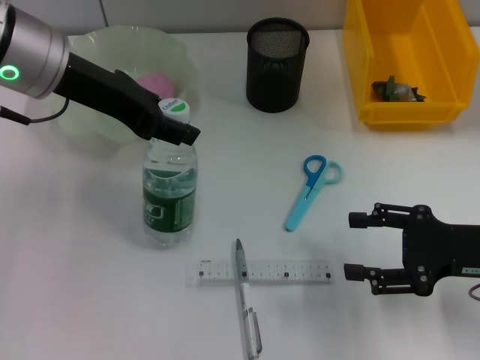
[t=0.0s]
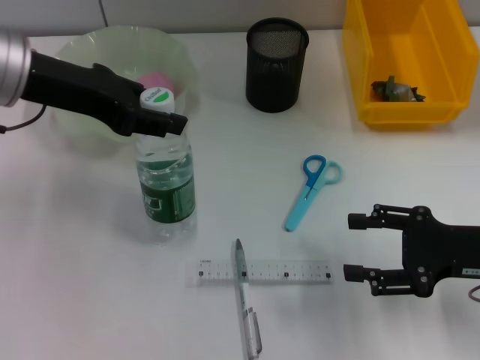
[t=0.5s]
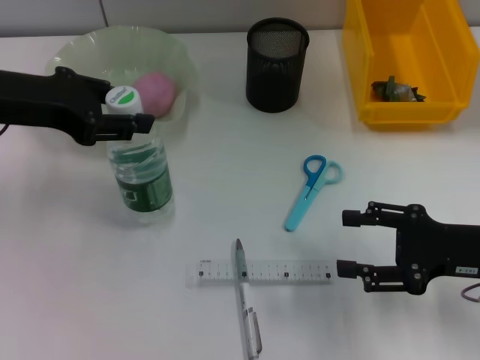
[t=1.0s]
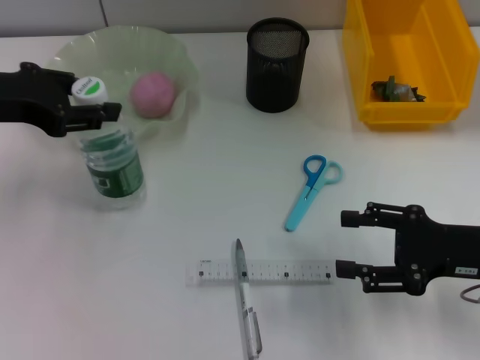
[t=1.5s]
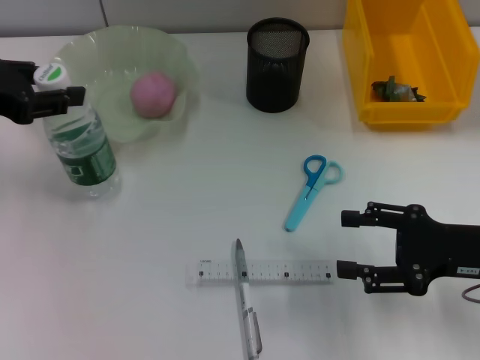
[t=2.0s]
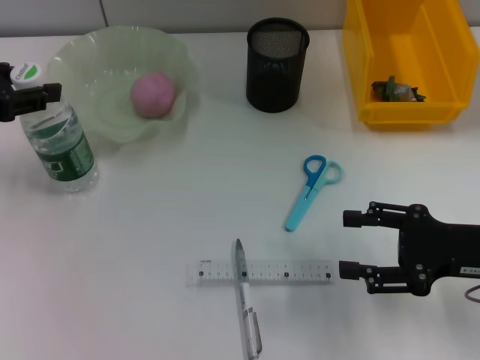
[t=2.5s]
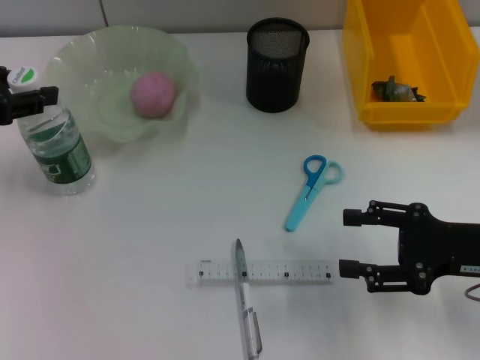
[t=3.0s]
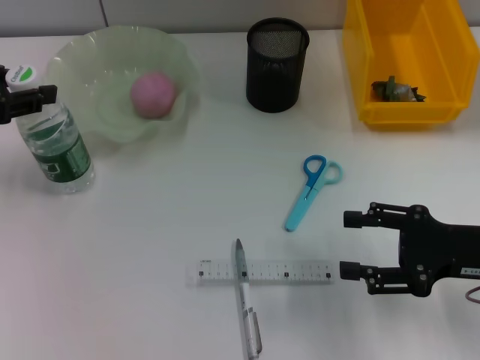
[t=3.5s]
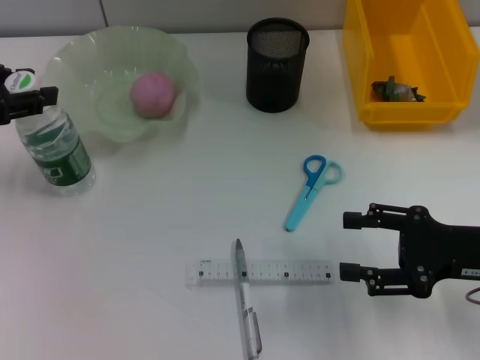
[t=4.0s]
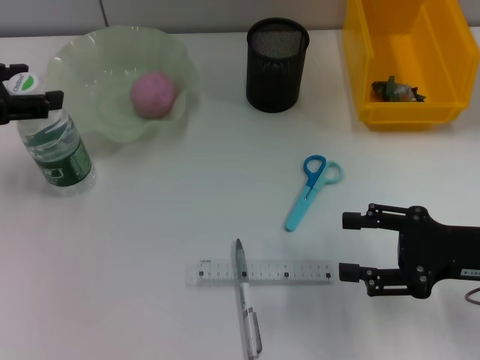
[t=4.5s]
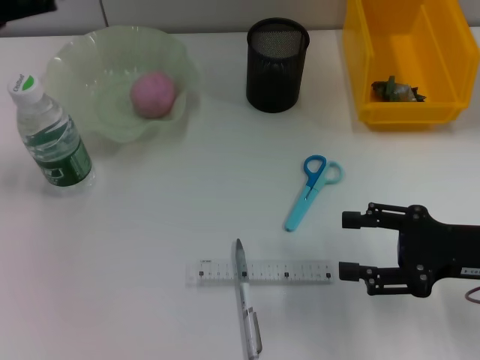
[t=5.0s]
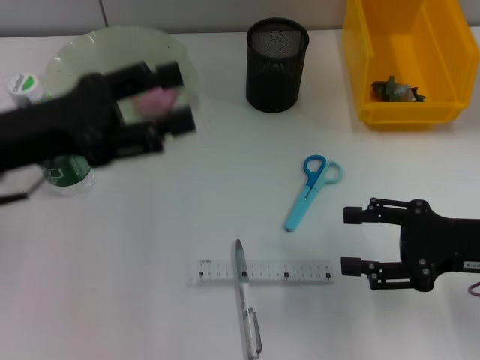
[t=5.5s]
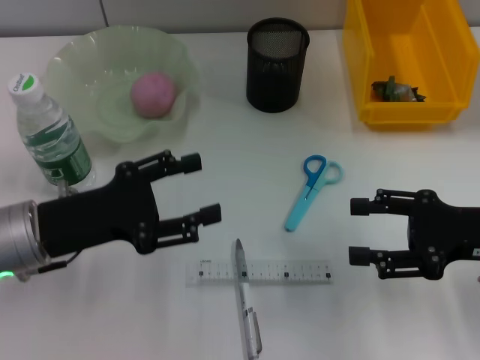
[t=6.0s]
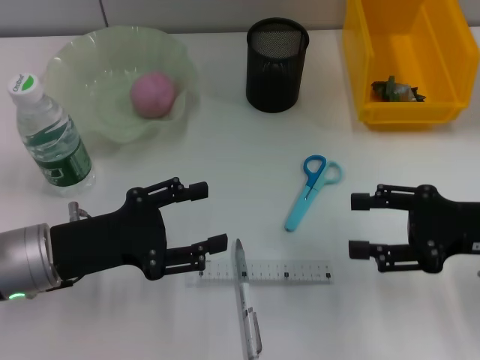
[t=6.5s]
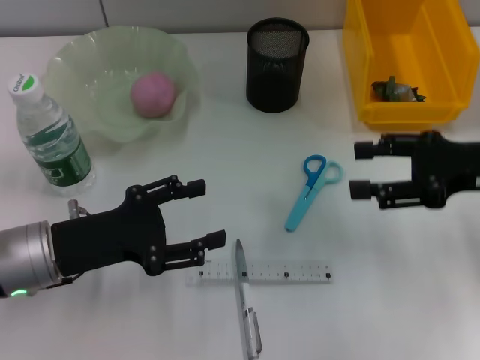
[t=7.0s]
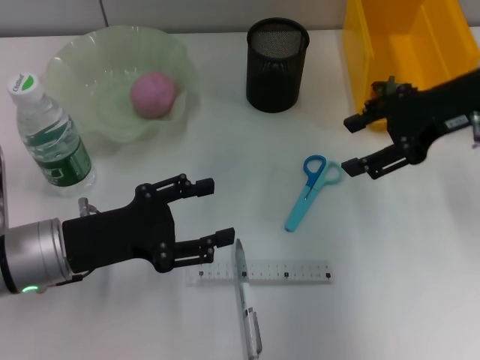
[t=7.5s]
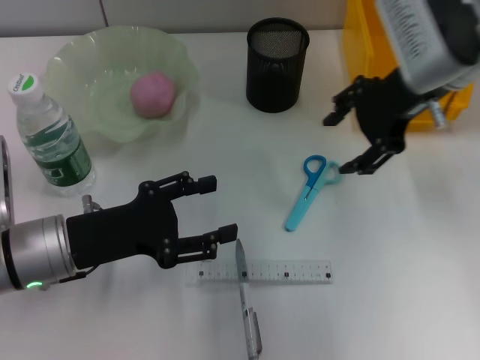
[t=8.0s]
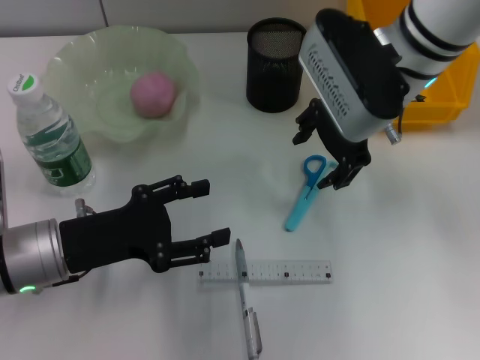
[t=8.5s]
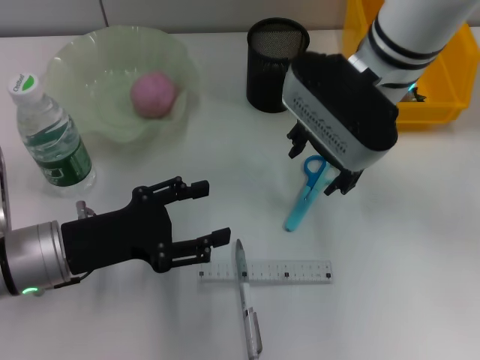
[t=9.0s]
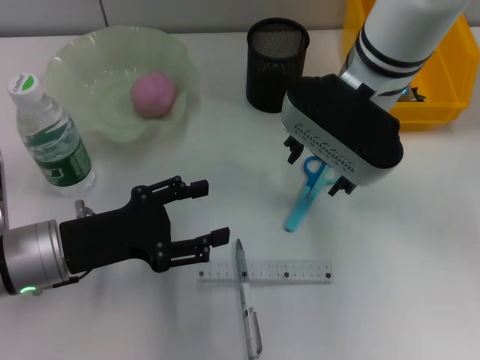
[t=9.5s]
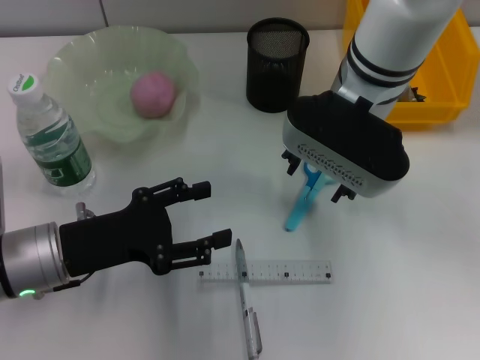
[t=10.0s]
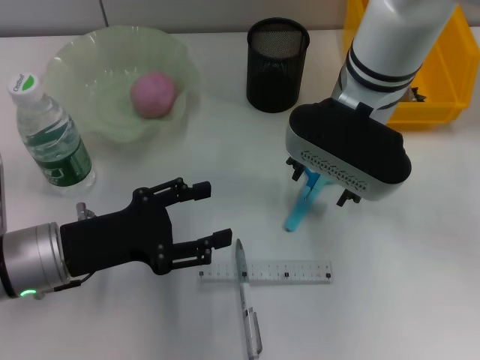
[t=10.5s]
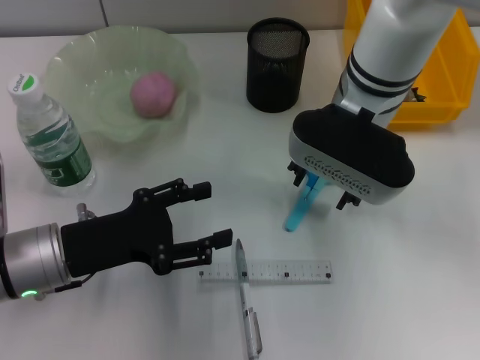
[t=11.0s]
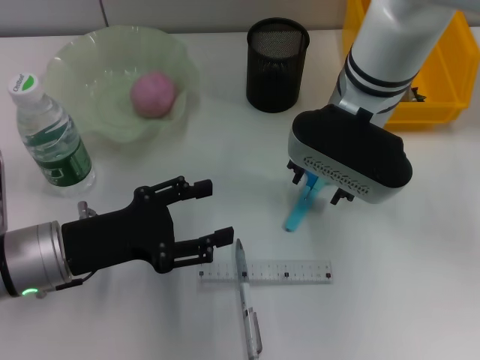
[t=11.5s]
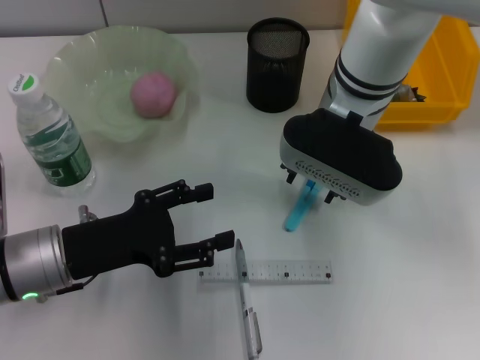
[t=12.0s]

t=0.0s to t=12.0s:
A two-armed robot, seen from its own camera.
Step, t=0.0s to t=4.0s: Place the water bottle on the table with the left hand.
t=0.0s to t=2.0s: The left gripper goes approximately 10 cm to the left.
t=2.0s to t=4.0s: The grippers move only a little.
t=4.0s to t=6.0s: The left gripper moves downward, to the right and backward, approximately 15 cm, and opens up.
t=6.0s to t=8.0s: The right gripper heads forward, upward and to the left, covering roughly 20 cm.
t=8.0s to t=10.0s: The right gripper is displaced to the left by approximately 10 cm.
t=10.0s to t=12.0s: The grippers stay close to where they were, moving slightly.

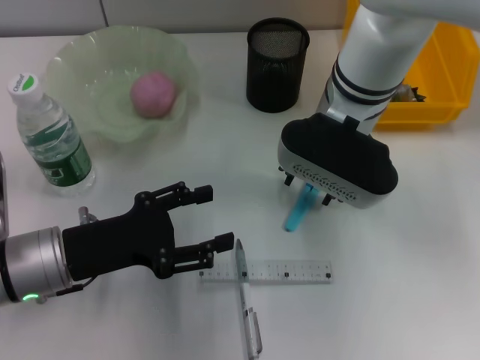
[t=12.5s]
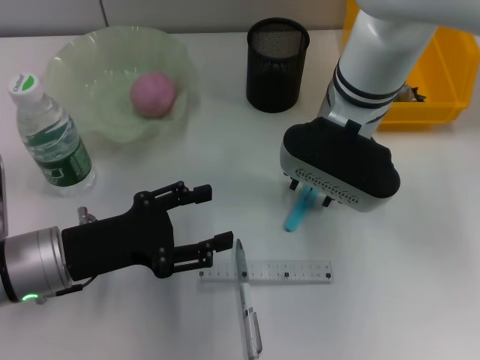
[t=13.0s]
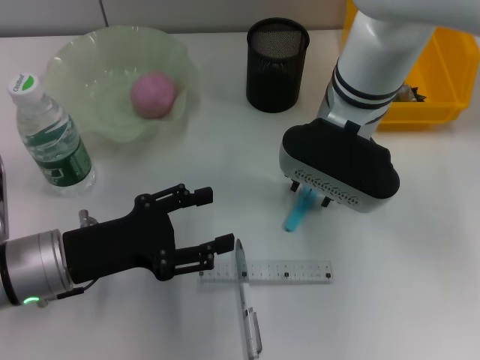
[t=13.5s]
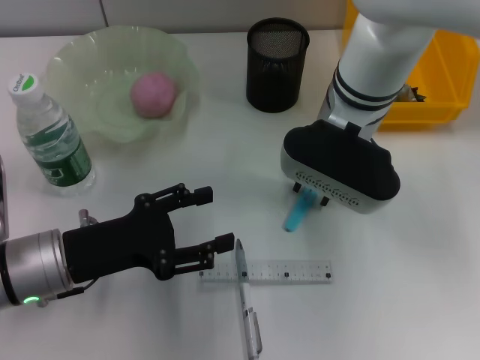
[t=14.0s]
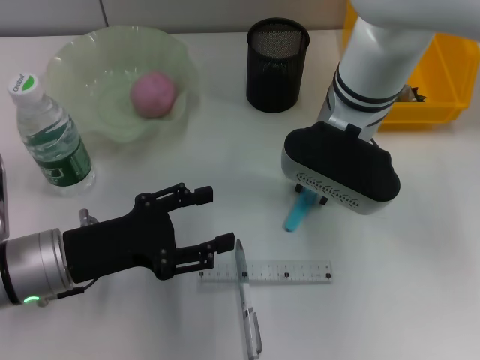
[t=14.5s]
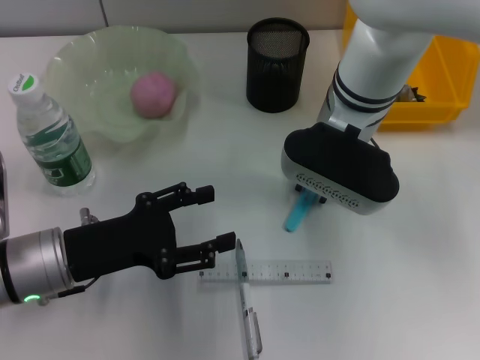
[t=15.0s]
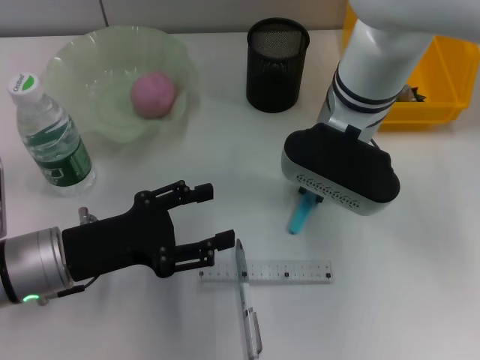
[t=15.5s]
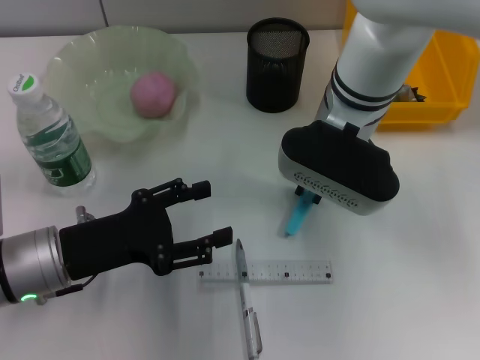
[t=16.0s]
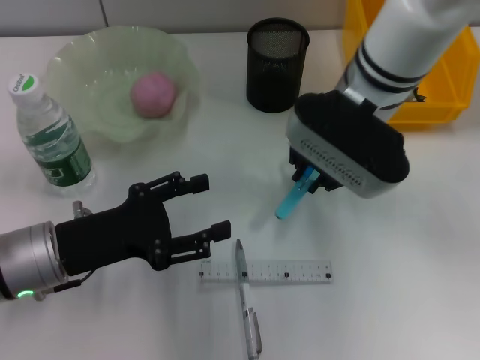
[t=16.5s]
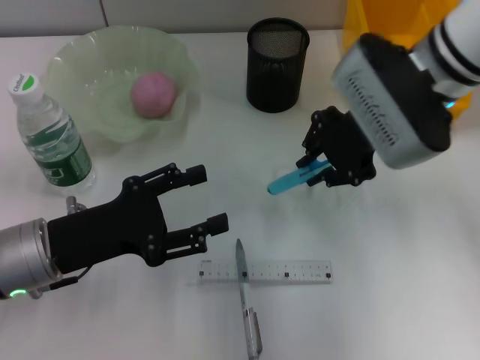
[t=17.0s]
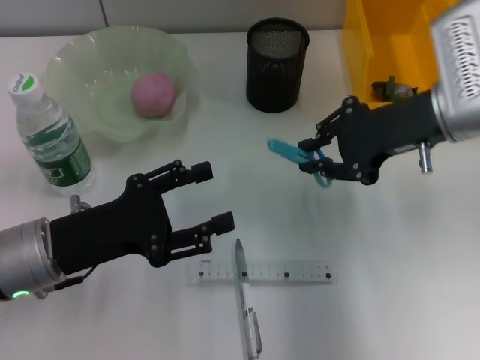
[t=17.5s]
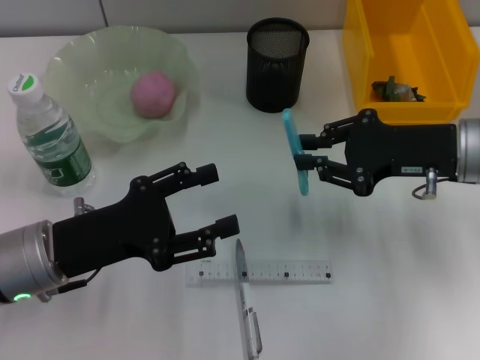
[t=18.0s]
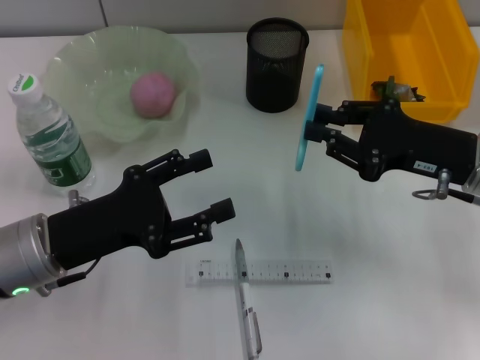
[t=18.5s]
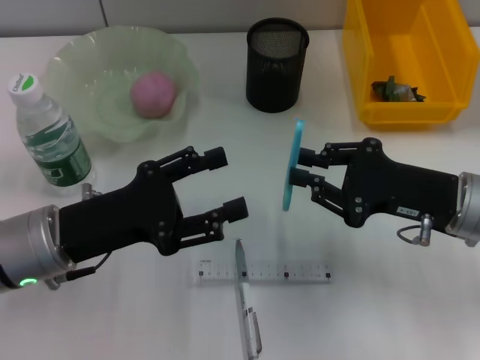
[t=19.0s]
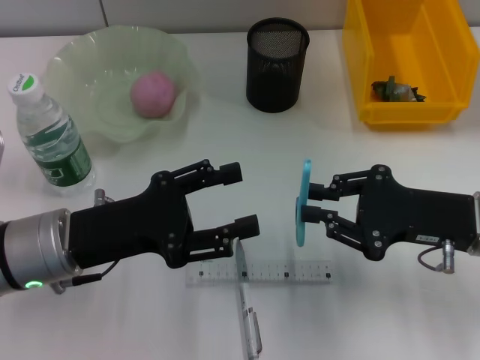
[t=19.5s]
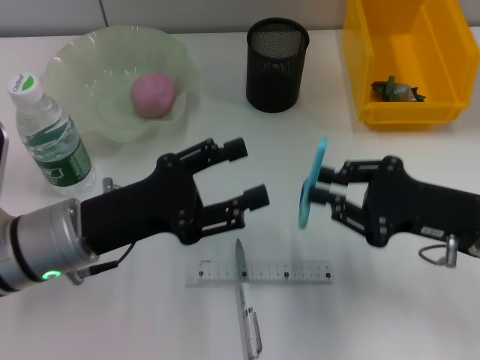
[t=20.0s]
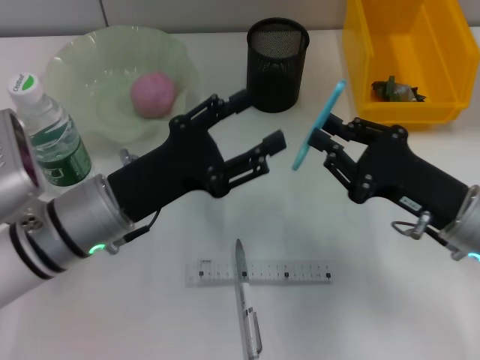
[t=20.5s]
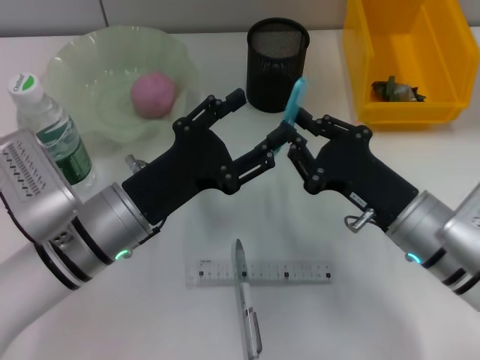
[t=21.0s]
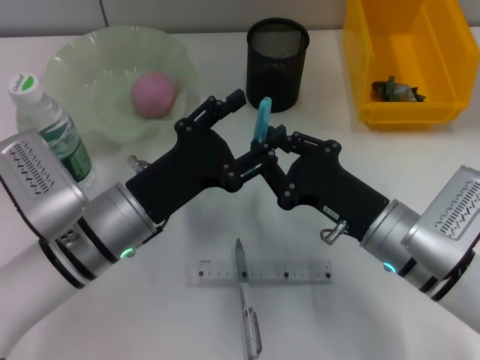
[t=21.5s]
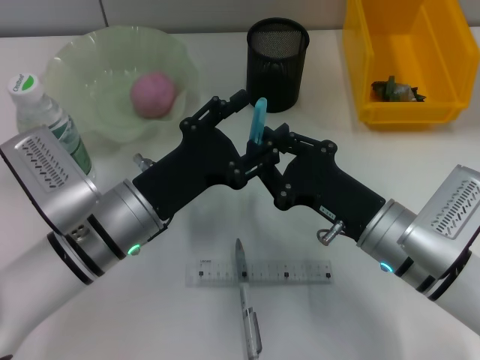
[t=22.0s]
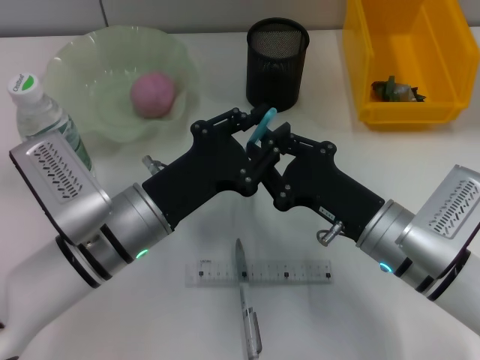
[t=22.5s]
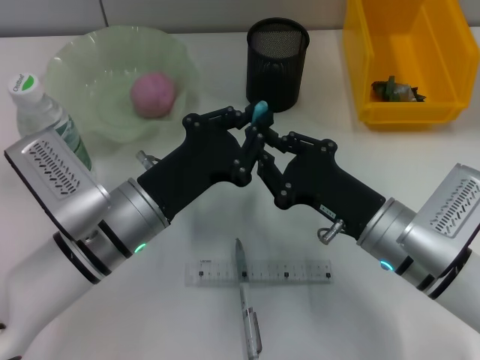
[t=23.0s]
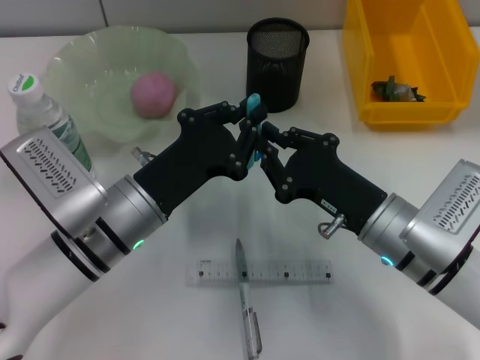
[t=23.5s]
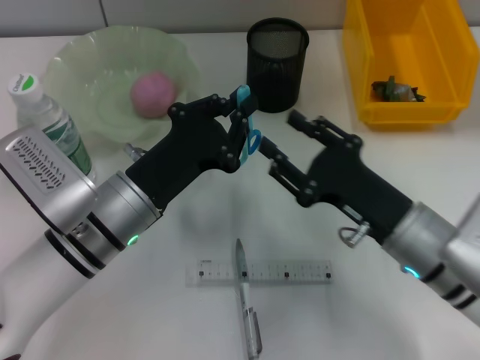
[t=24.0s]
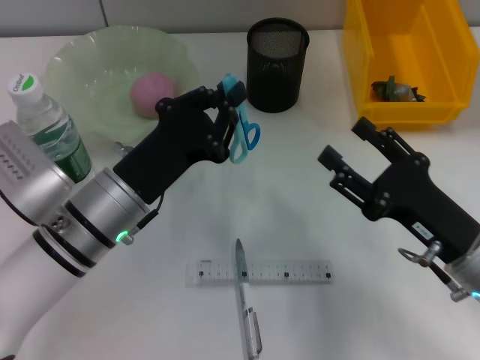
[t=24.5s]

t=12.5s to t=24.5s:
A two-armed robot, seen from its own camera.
Step, t=12.5s to t=15.0s: Grab the blue scissors with the right hand.
Step, t=16.0s to t=23.5s: Pass the blue scissors from the right hand to the left hand.
t=12.5s to t=14.5s: Neither gripper changes place.
t=14.5s to t=16.5s: The grippers move only a little.
t=16.5s to t=18.5s: The right gripper shifts approximately 20 cm to the right, backward and downward.
t=18.5s to t=20.5s: The right gripper shifts by about 5 cm. Meanwhile the left gripper travels to the right by some 5 cm.
t=20.5s to t=22.5s: The right gripper moves to the left, roughly 5 cm.
t=22.5s to t=24.5s: The right gripper moves to the right, some 5 cm, and opens, while the left gripper closes.

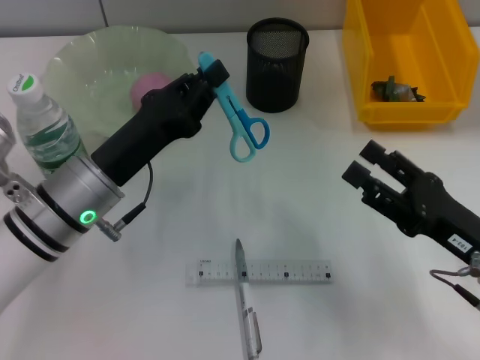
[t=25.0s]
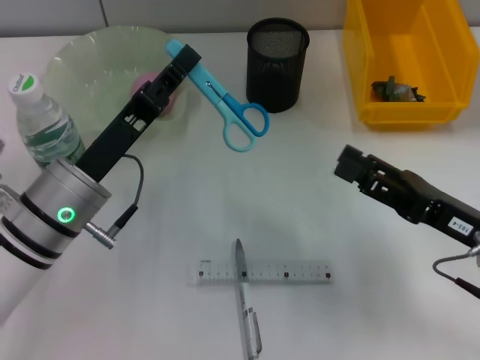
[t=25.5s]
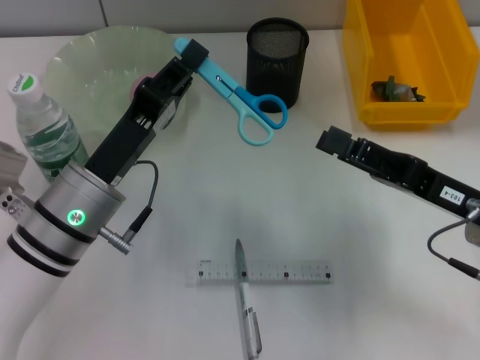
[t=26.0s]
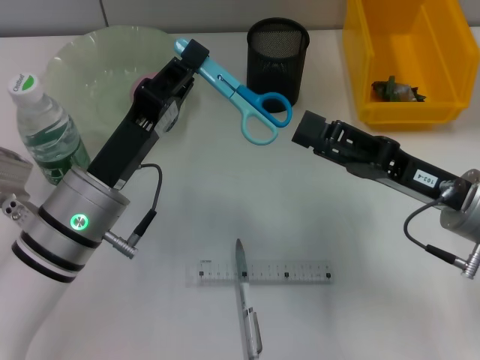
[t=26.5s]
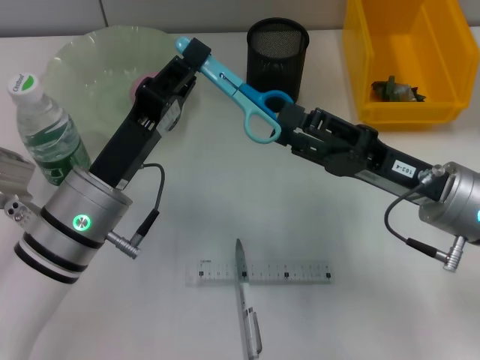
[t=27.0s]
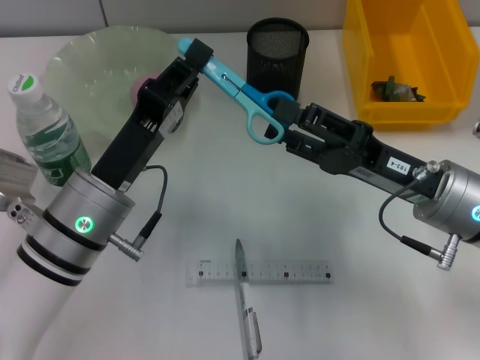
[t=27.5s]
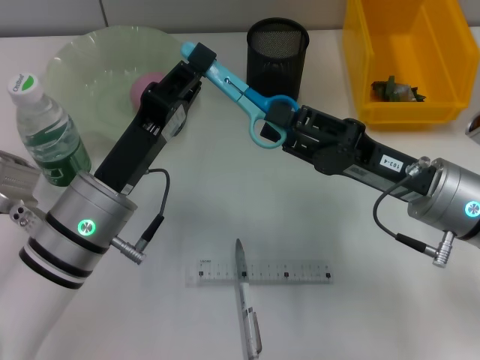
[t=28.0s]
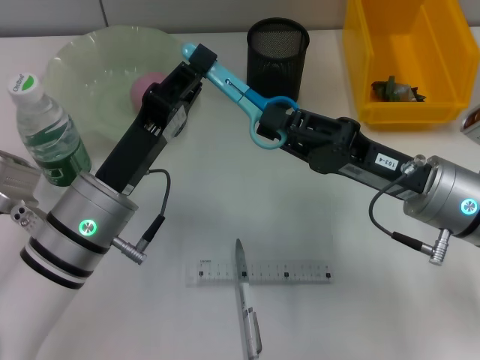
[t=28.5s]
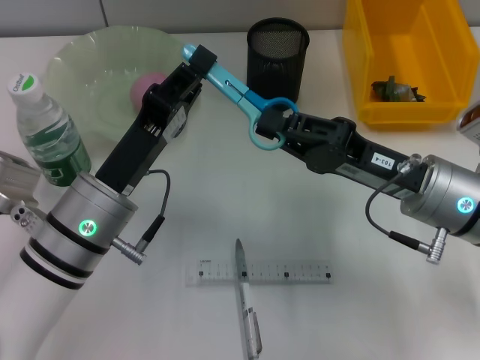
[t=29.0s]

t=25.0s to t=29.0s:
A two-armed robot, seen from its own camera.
t=25.0s to t=27.0s: The right gripper goes approximately 5 cm forward.
t=27.0s to t=29.0s: The right gripper closes.
